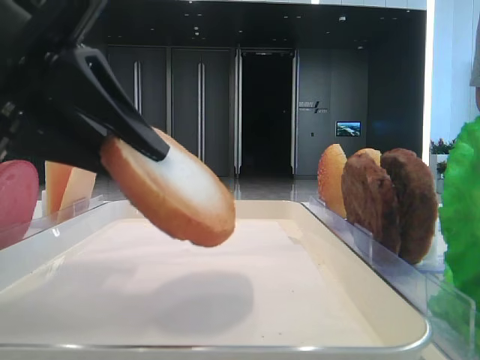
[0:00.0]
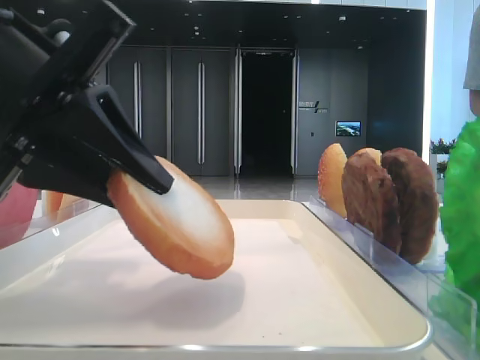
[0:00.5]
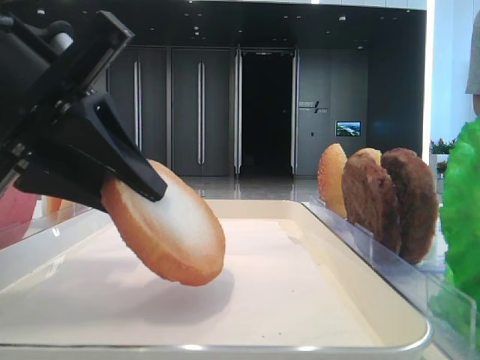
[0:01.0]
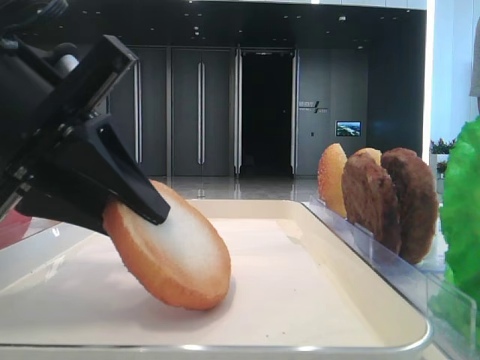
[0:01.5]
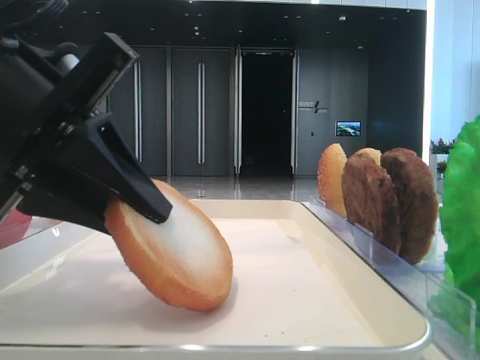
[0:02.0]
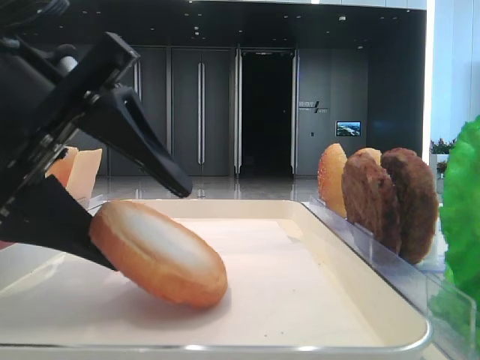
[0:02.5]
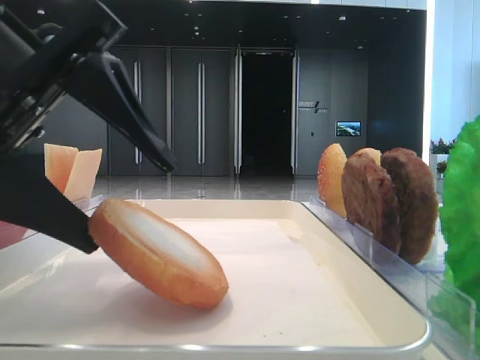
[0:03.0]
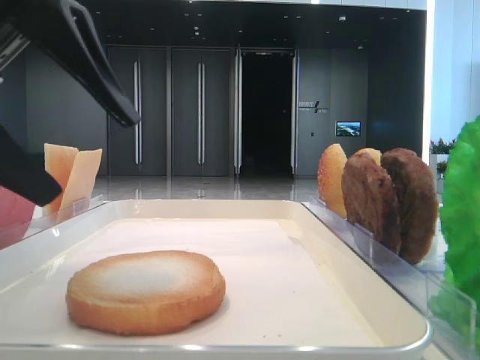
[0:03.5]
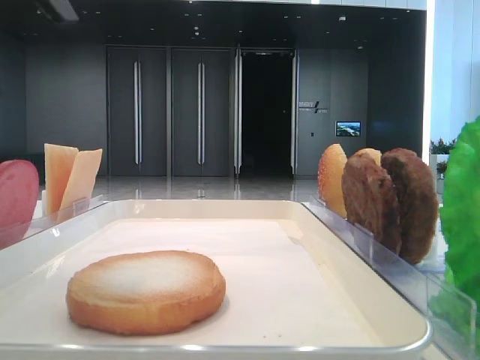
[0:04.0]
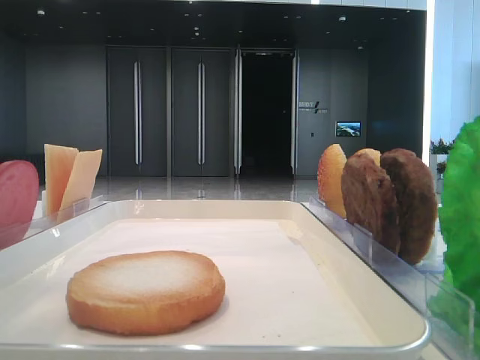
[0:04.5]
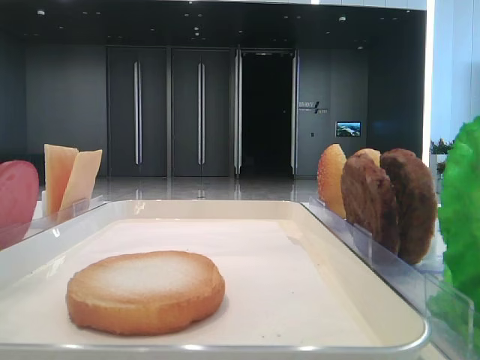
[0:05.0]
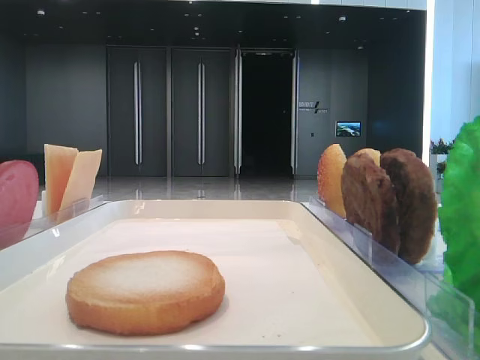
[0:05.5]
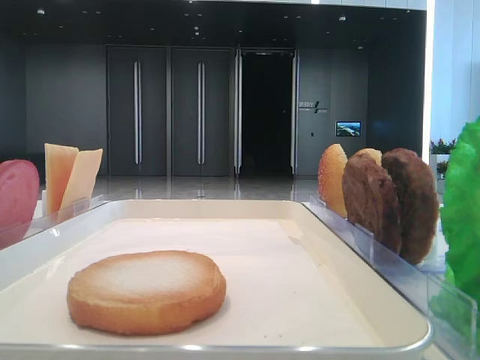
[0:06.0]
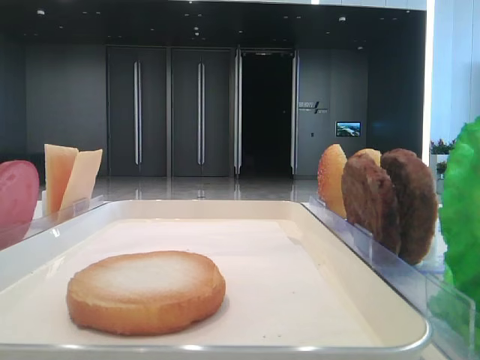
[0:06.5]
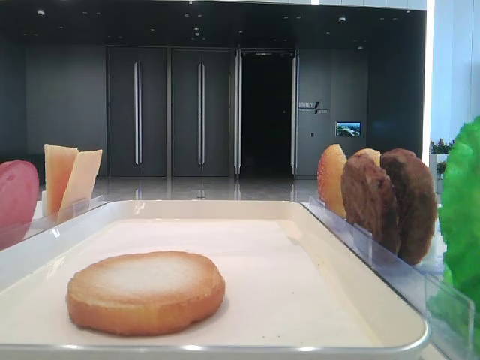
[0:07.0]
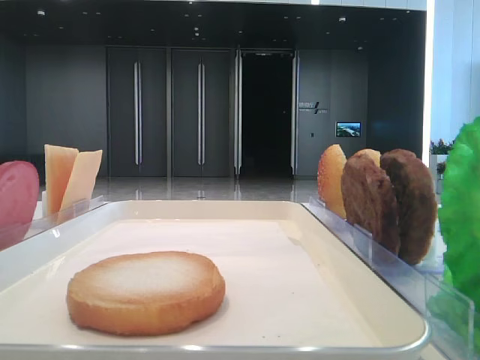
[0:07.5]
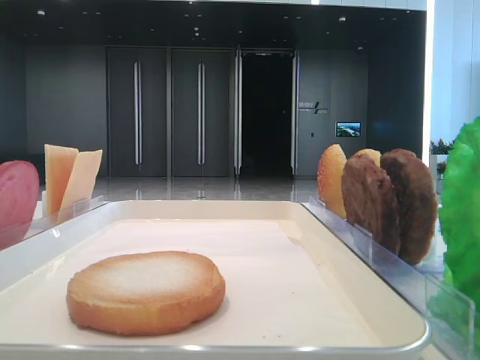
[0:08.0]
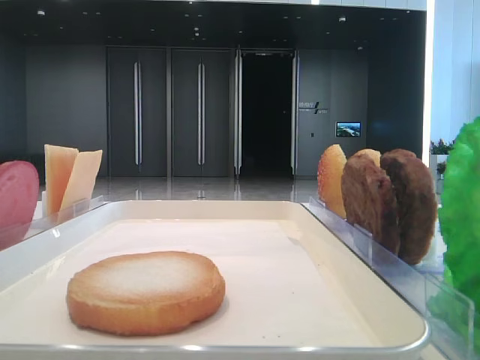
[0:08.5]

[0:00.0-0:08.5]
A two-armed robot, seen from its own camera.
Step, 0:00.0 to 0:03.0: Place the bread on the tray with the left hand.
0:00.0 to 0:02.0: There are only small adjustments of the grippers.
0:02.0 to 0:04.0: The left gripper heads upward, covering some 10 cm, and opens up.
0:04.0 to 0:06.5: The left gripper goes roughly 15 cm to the left and upward.

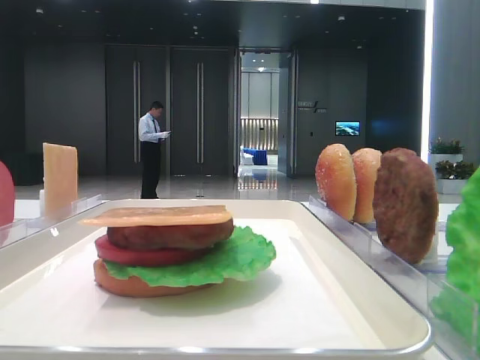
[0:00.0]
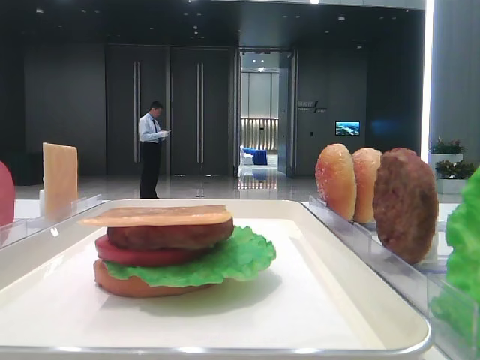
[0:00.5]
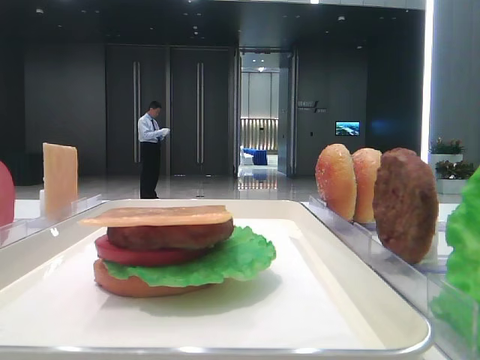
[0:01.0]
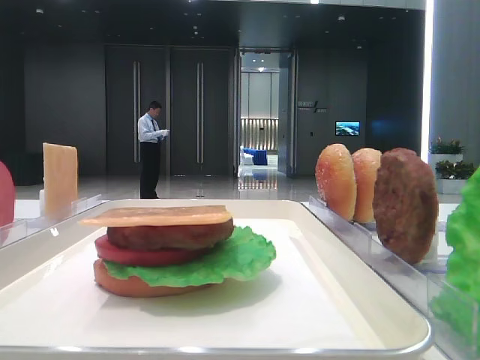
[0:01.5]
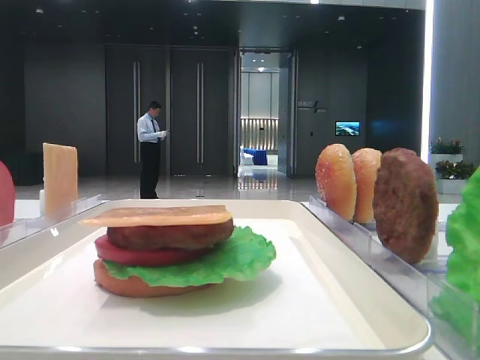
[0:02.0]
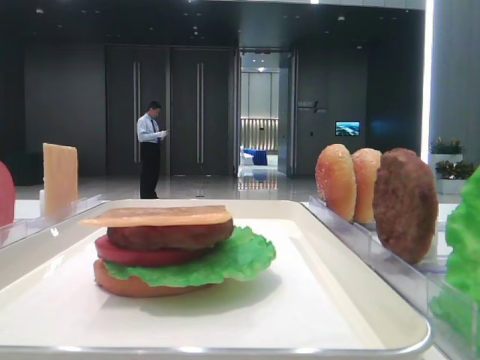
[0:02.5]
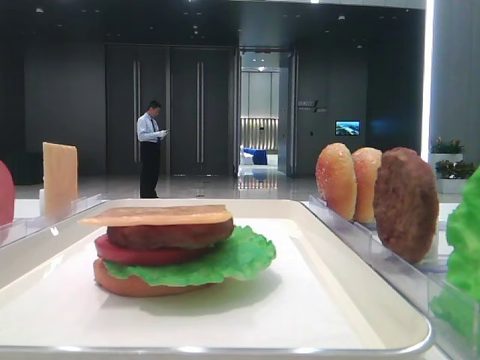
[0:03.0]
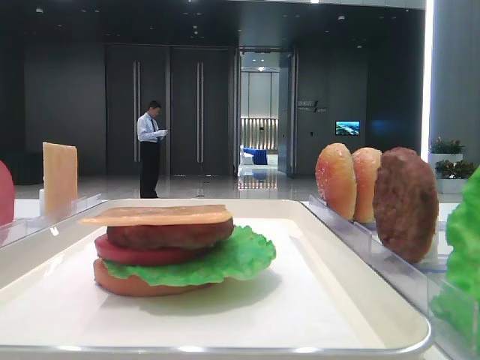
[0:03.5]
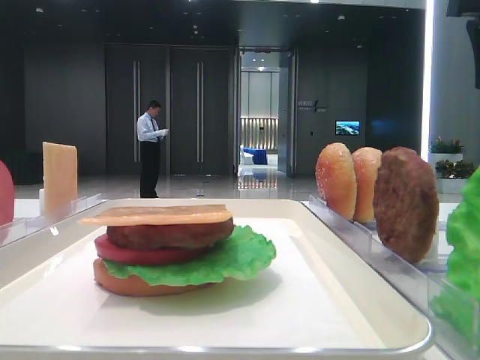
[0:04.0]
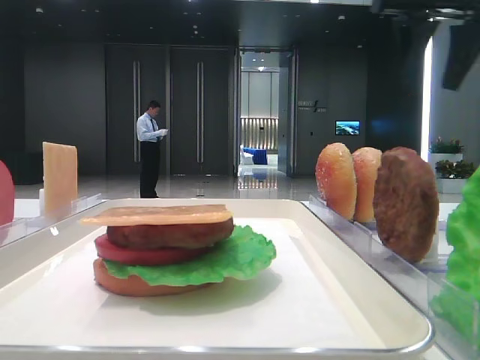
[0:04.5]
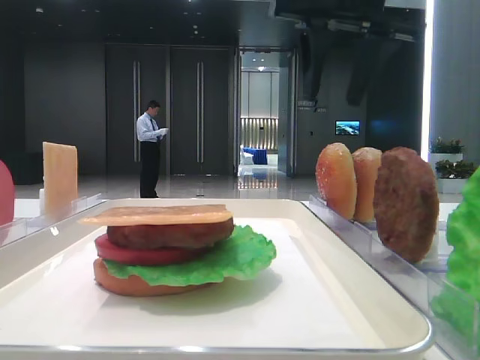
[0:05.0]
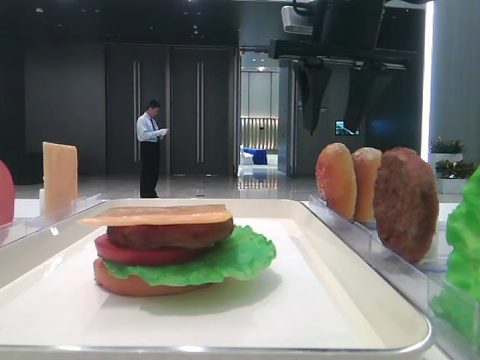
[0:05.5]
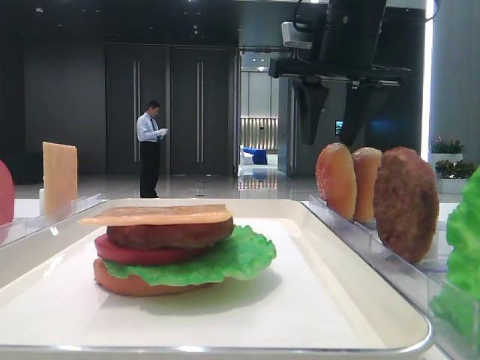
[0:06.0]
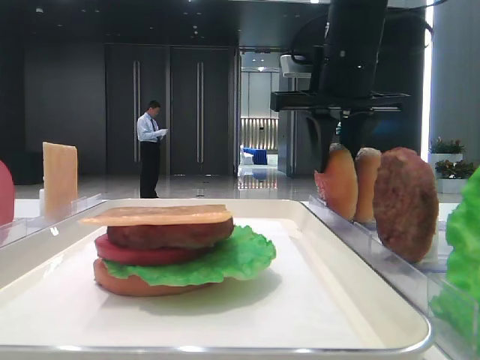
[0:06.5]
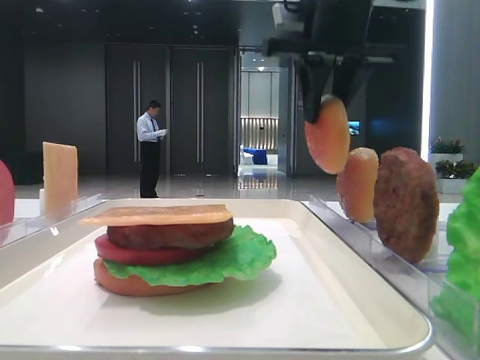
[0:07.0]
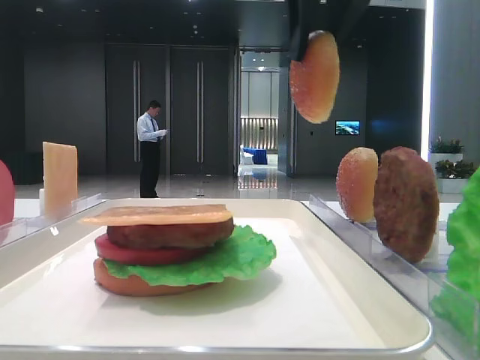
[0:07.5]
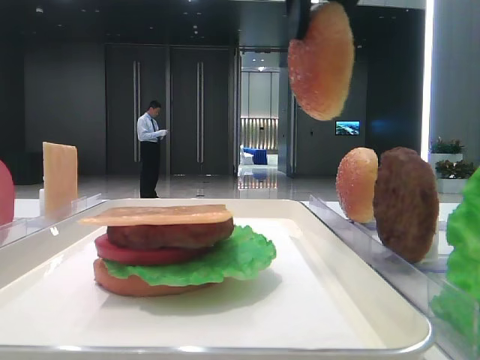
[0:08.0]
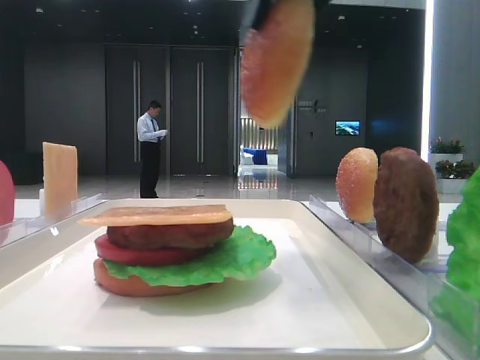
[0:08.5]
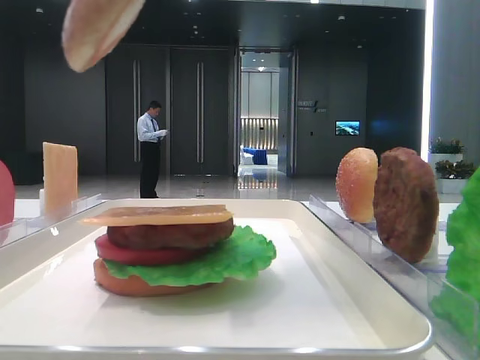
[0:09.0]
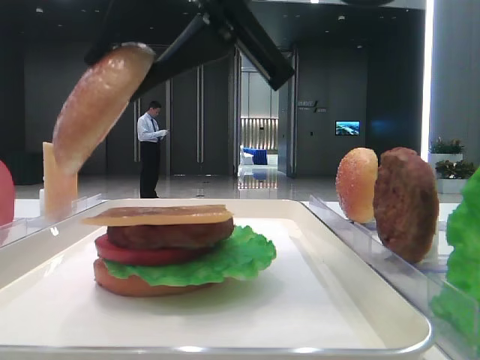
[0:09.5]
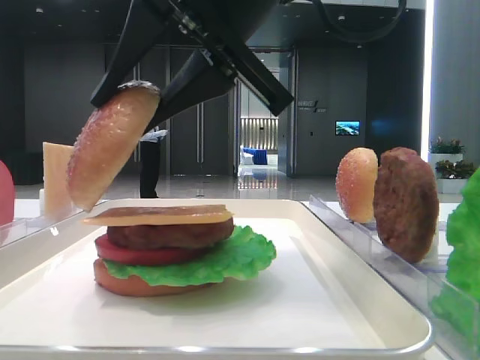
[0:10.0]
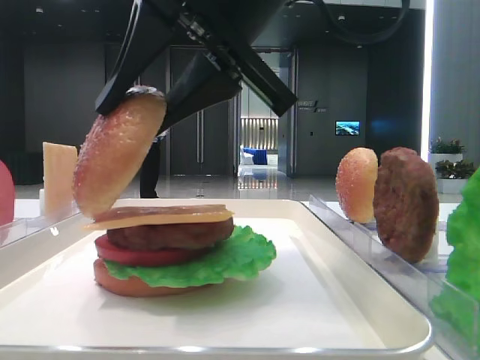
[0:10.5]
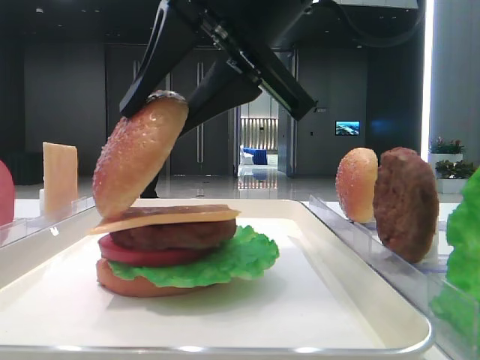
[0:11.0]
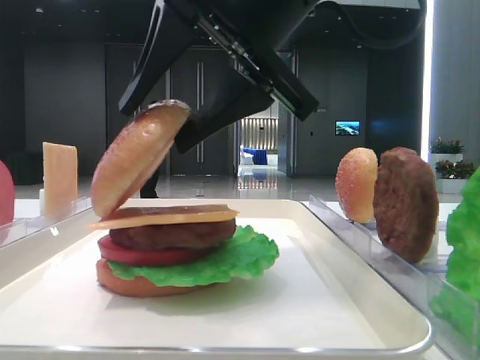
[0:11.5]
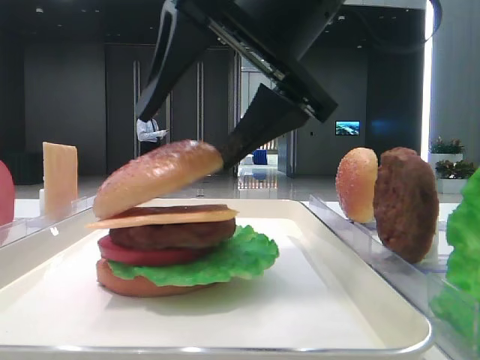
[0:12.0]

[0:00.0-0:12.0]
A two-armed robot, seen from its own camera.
Step, 0:00.0 to 0:06.5: Pick up the top bread slice with the right hand.
Step, 0:07.0 to 0:12.0: Place the top bread slice on the cheese with the right hand.
0:02.0 to 0:04.0: The right gripper goes roughly 40 cm forward; the left gripper closes.
0:04.0 to 0:06.0: The right gripper travels to the left by approximately 15 cm.
0:06.0 to 0:08.0: The right gripper moves backward and upward, roughly 15 cm, and closes its fingers.
0:08.0 to 0:10.0: The right gripper shifts about 15 cm downward, to the left and backward.
0:10.0 to 0:12.0: The right gripper opens up.

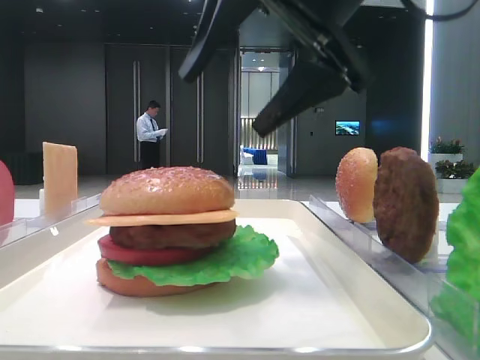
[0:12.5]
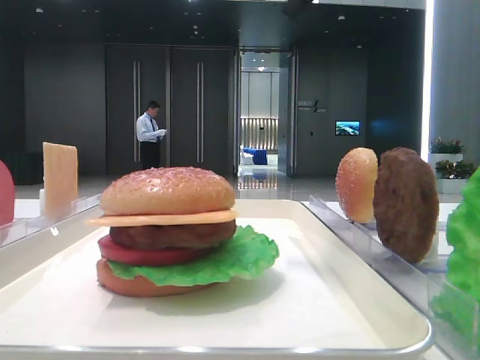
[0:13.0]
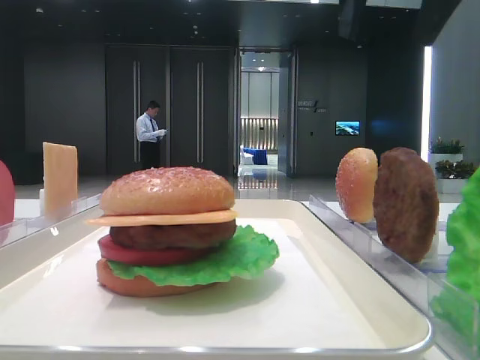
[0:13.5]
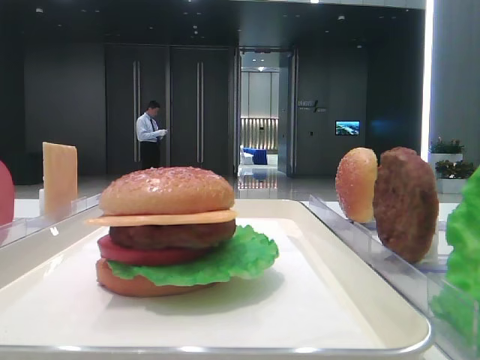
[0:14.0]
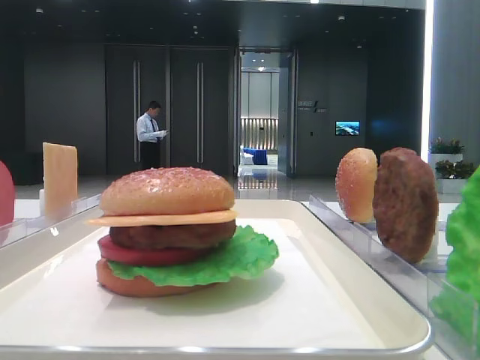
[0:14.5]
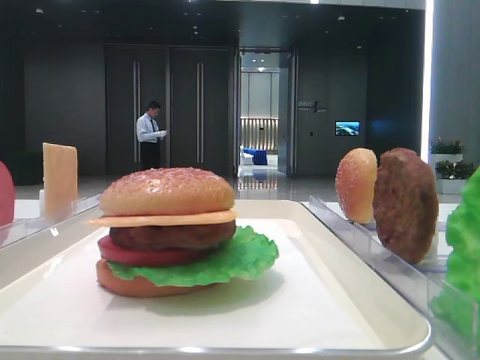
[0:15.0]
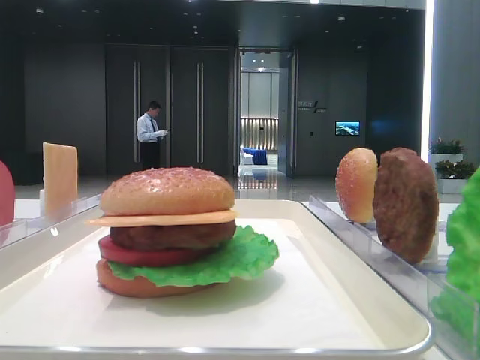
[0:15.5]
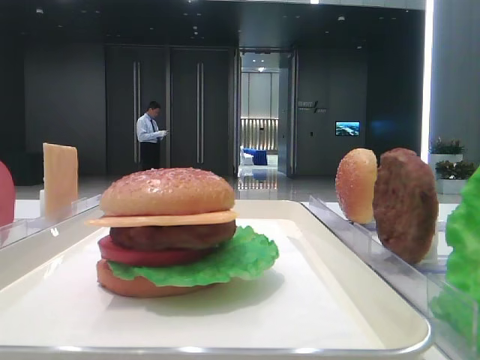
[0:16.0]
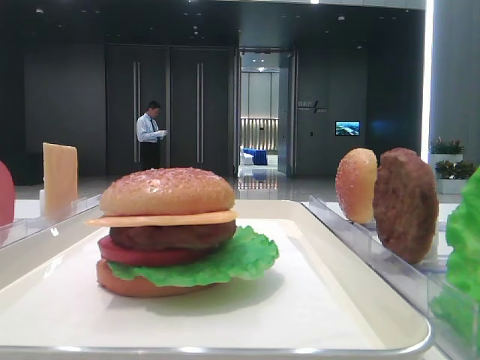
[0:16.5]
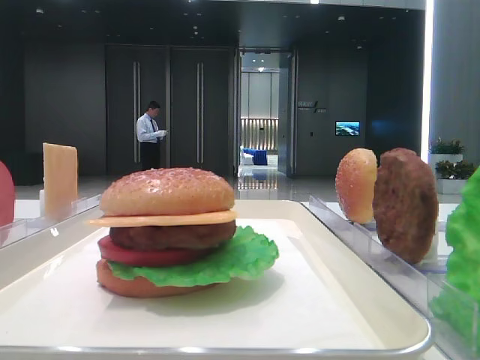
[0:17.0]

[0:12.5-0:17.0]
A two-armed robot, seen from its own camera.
0:12.5 to 0:14.5: The right gripper moves to the right, approximately 25 cm.

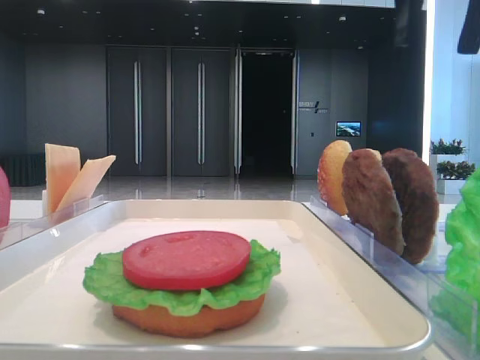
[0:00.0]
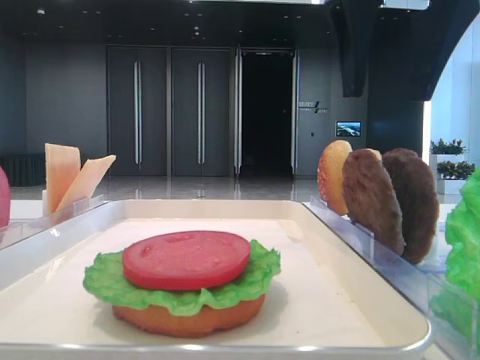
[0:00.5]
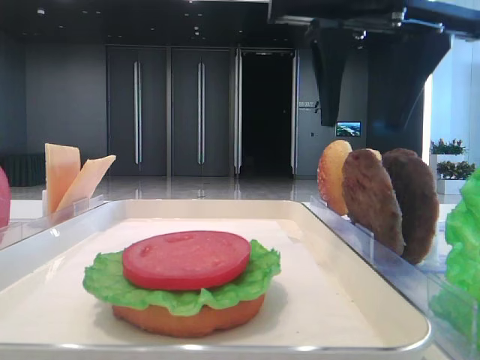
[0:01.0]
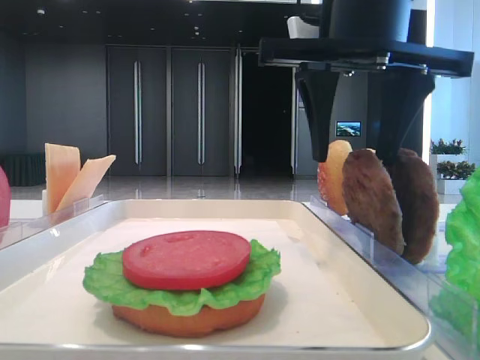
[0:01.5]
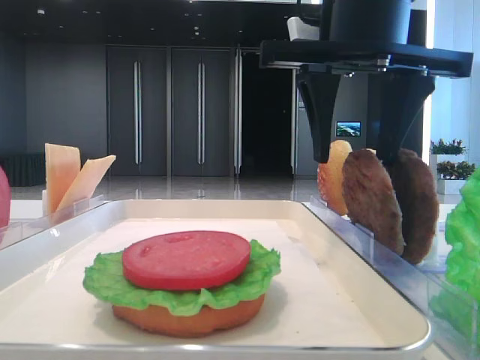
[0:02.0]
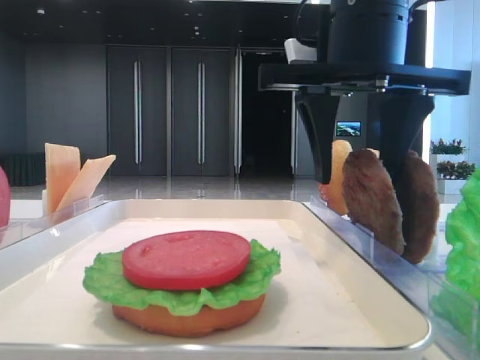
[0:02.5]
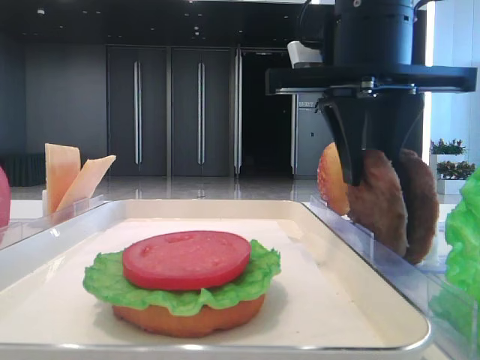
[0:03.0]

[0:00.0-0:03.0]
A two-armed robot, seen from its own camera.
0:00.0 to 0:01.5: The right gripper travels downward and to the left by some 10 cm.
0:01.5 to 0:03.0: The right gripper closes its fingers.
